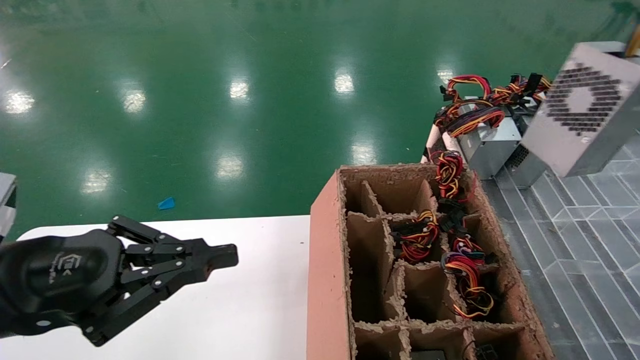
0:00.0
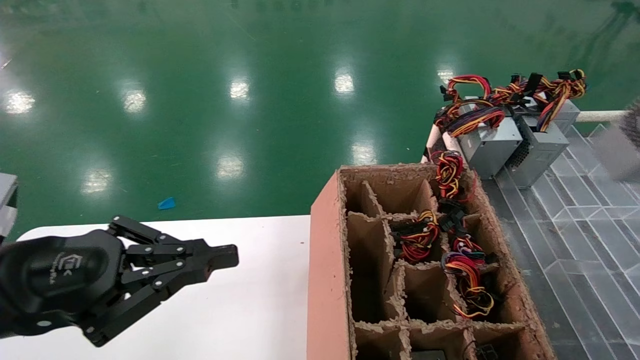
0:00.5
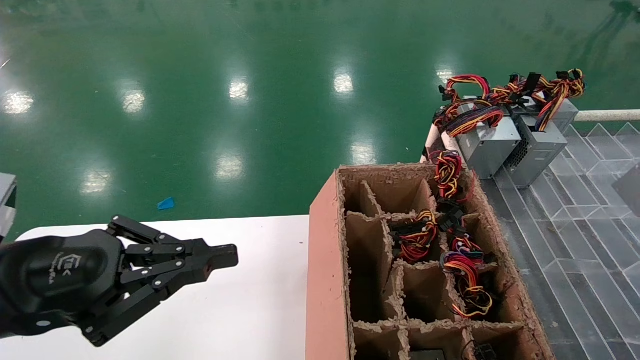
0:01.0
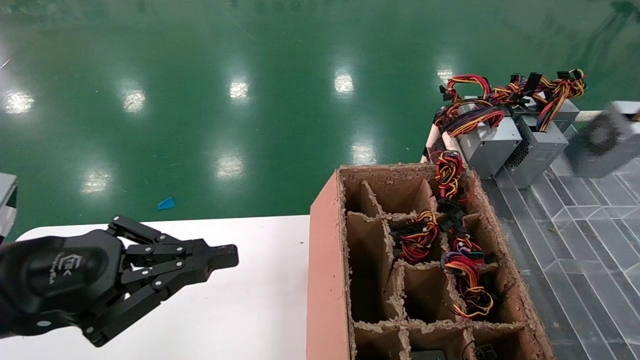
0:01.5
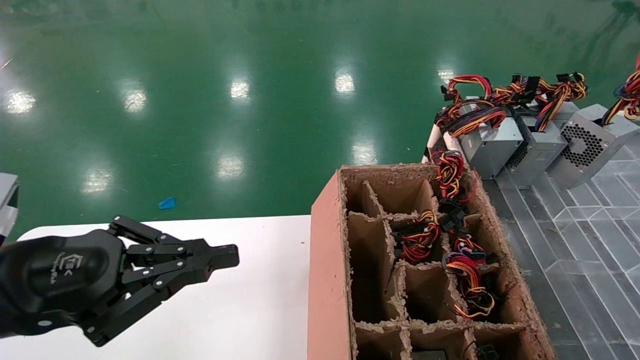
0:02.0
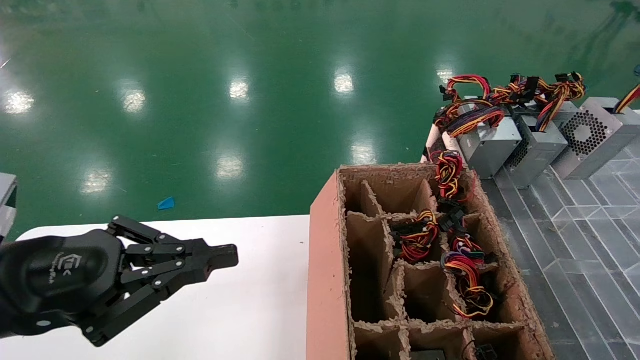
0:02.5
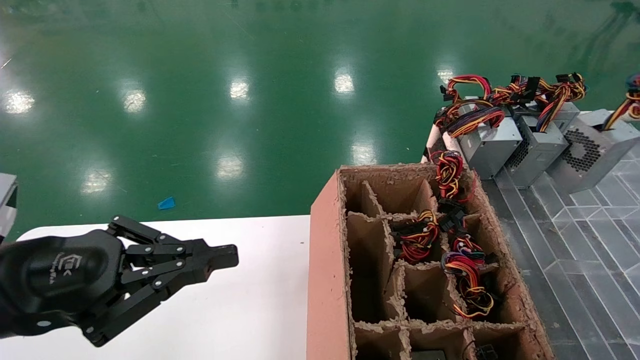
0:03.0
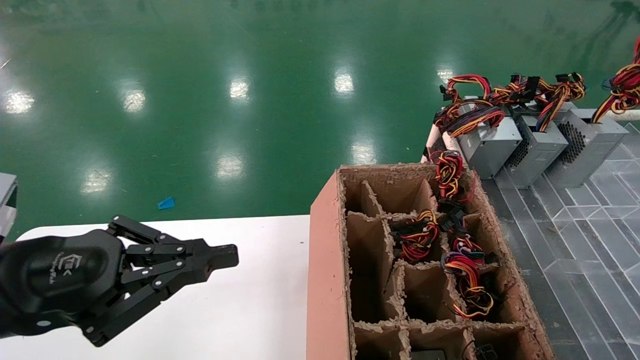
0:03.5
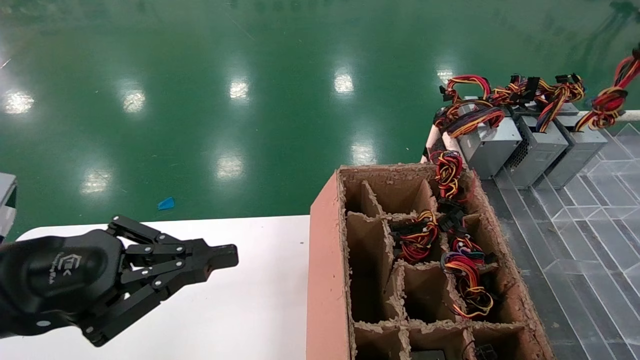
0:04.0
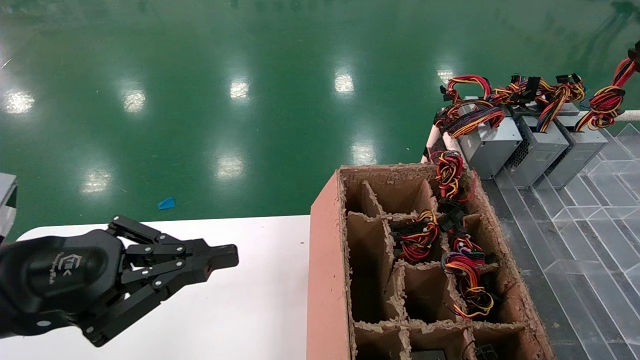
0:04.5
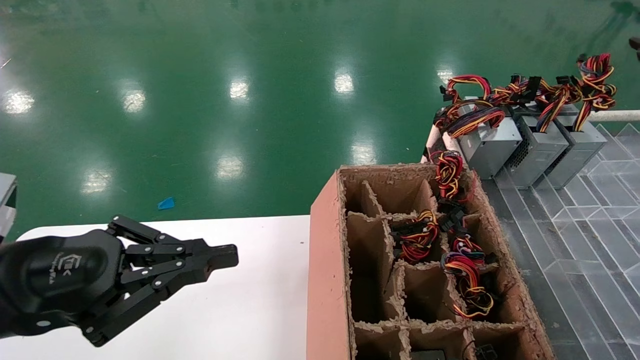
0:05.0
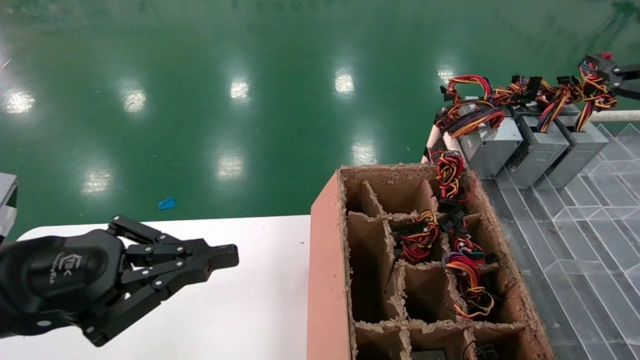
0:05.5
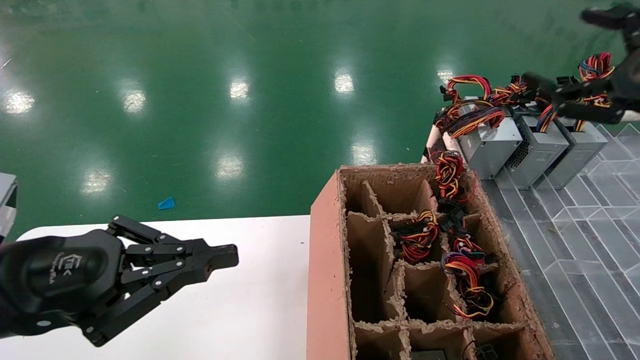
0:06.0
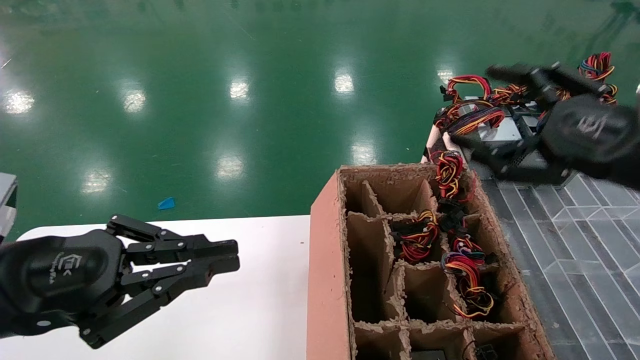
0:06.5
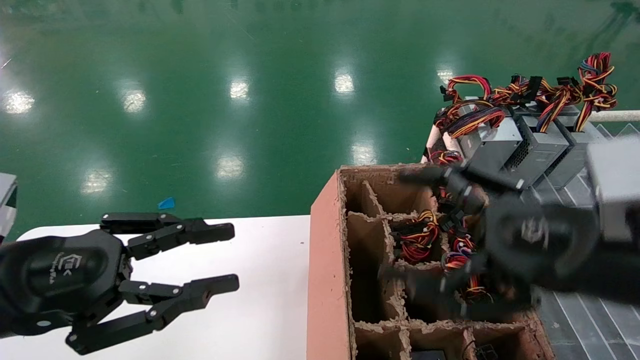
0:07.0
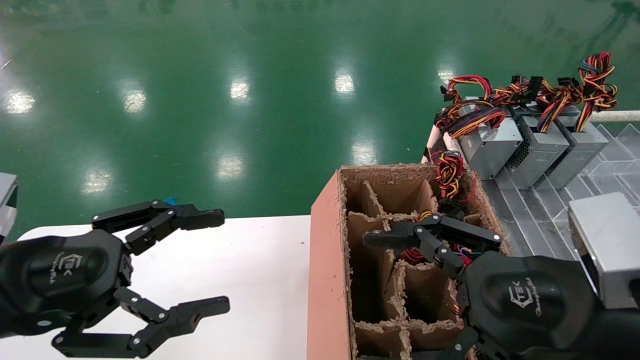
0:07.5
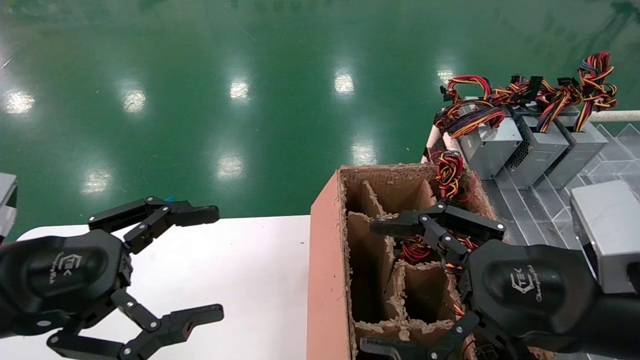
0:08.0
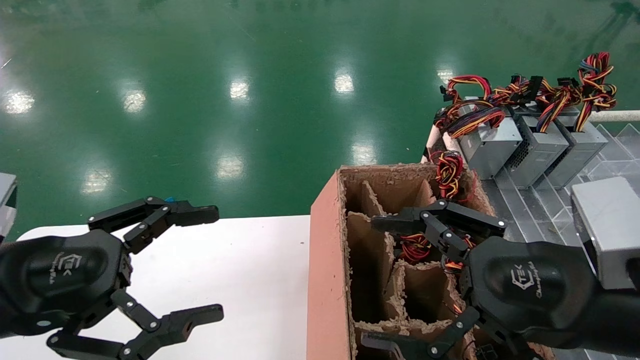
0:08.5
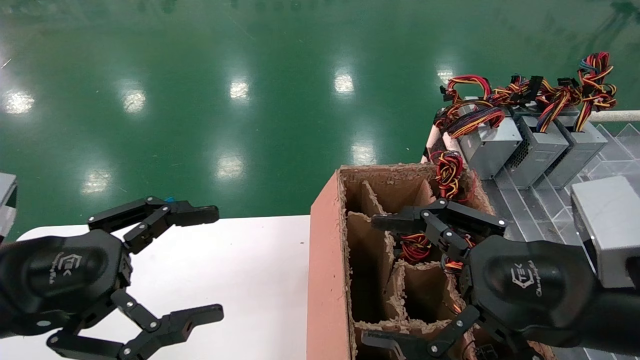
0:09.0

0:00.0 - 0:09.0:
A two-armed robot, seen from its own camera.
Step, 0:00.0 - 0:05.0: Place the main unit power supply in the designated area.
0:00.0 - 0:02.0: The right gripper shifts roughly 20 cm forward, downward and to the right.
0:02.0 - 0:04.5: There are only small adjustments of the grippers.
0:04.5 - 0:07.0: The right gripper shifts roughly 30 cm to the left and backward, and opens its fingers.
0:07.0 - 0:09.0: The left gripper opens its fingers.
